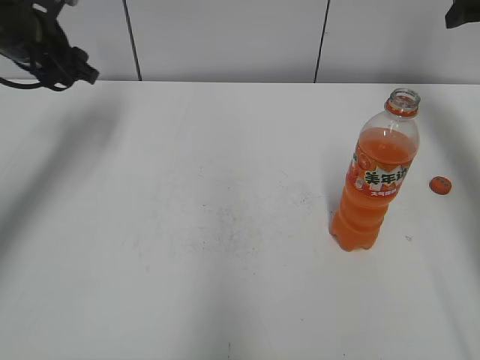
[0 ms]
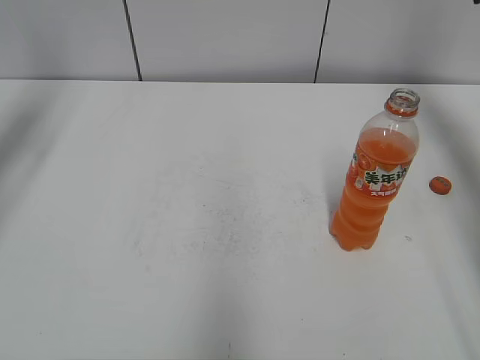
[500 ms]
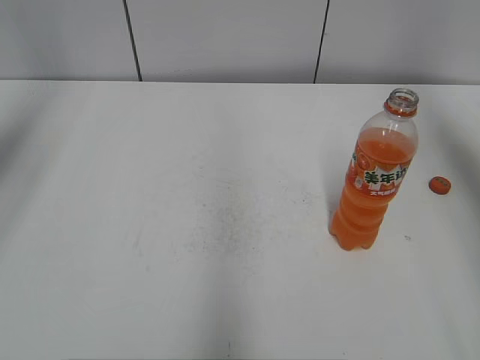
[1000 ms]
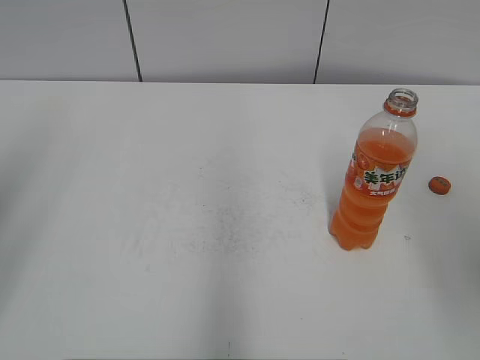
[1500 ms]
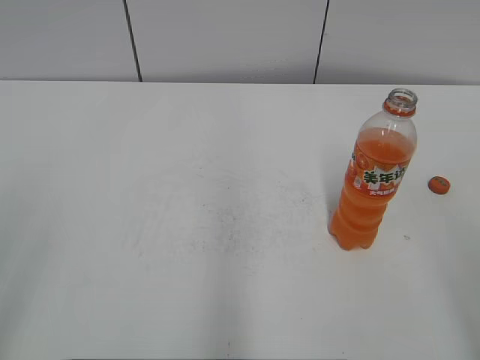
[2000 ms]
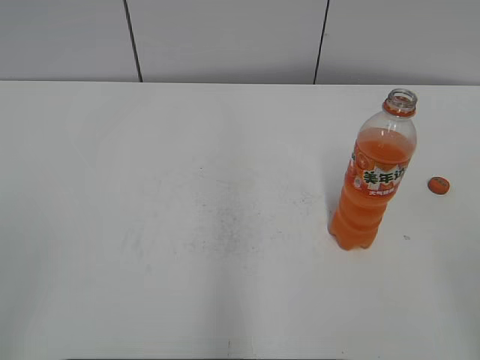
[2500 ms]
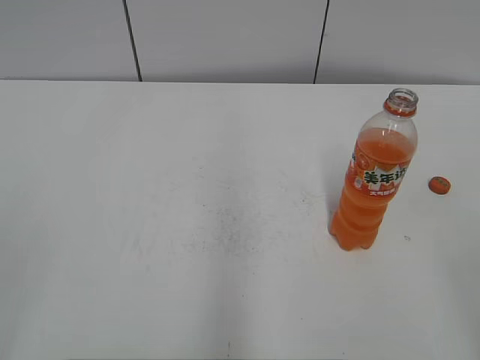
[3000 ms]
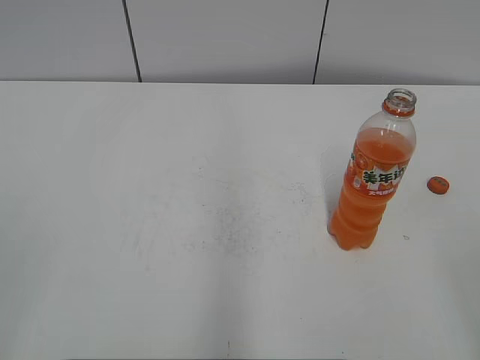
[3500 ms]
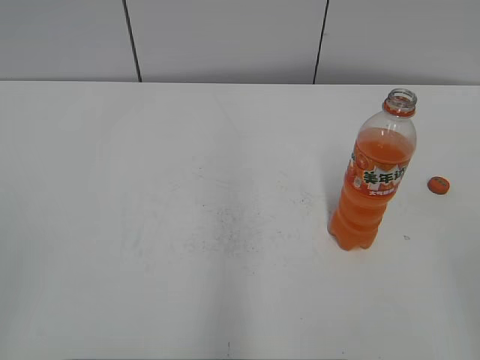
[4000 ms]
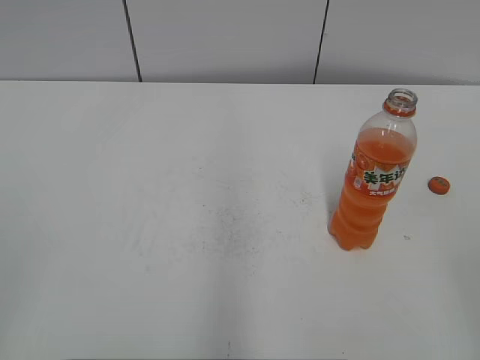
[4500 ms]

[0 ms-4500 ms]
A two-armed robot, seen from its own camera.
0 ms to 2000 ms: The grippers both shift backward by approximately 40 cm.

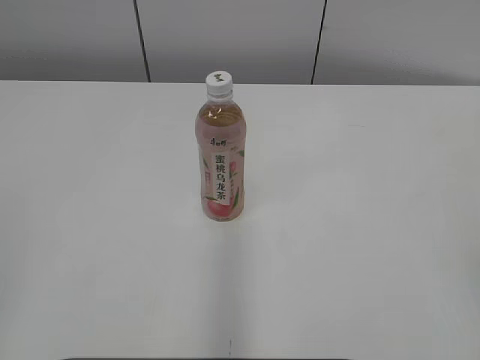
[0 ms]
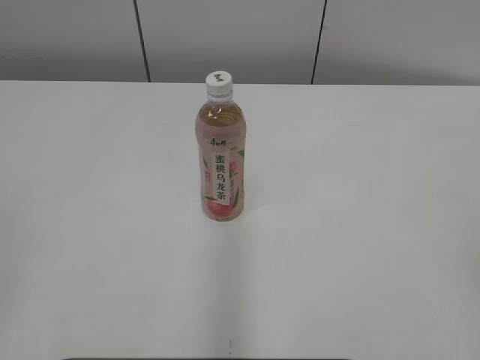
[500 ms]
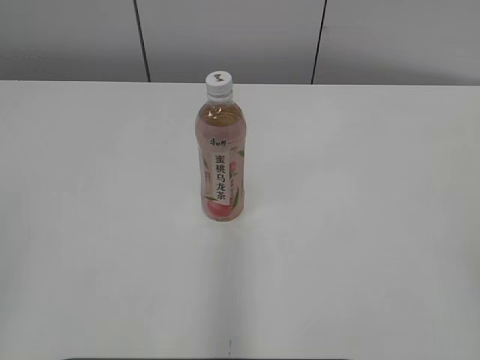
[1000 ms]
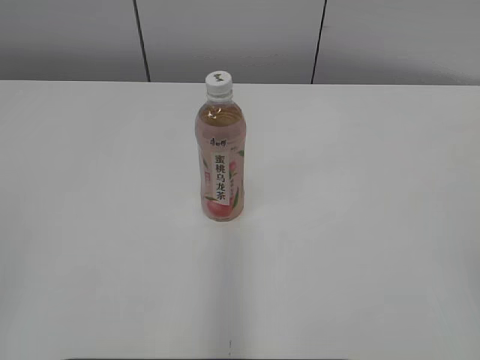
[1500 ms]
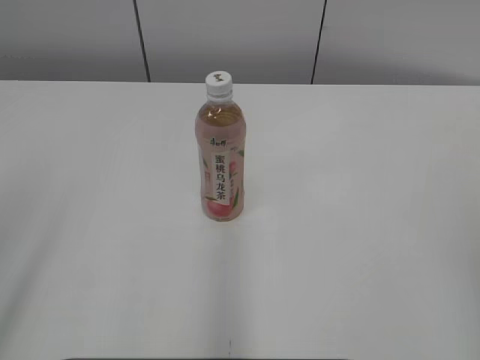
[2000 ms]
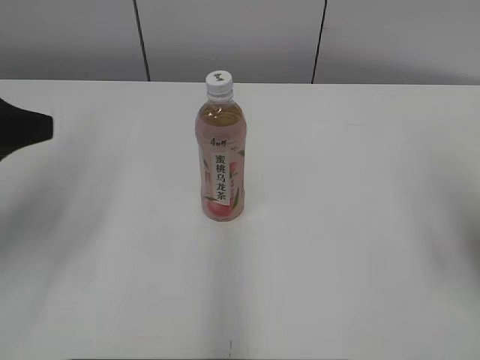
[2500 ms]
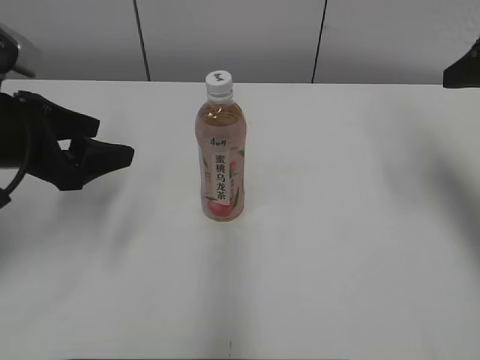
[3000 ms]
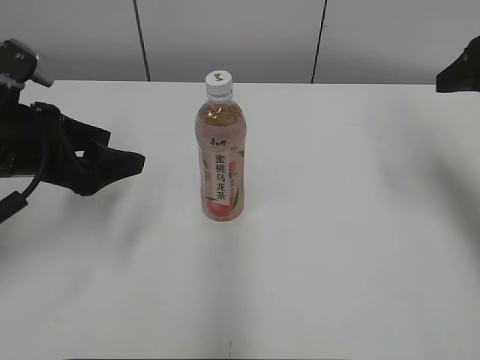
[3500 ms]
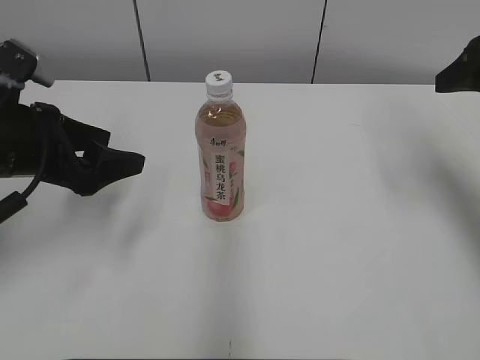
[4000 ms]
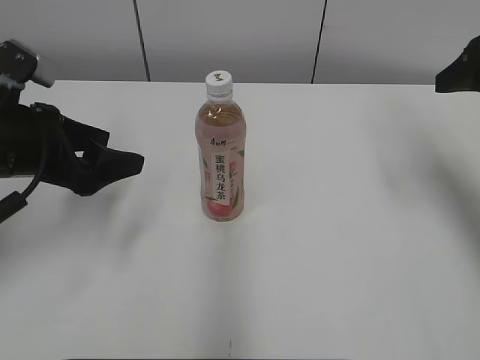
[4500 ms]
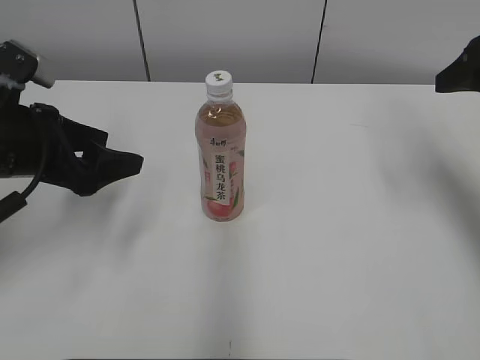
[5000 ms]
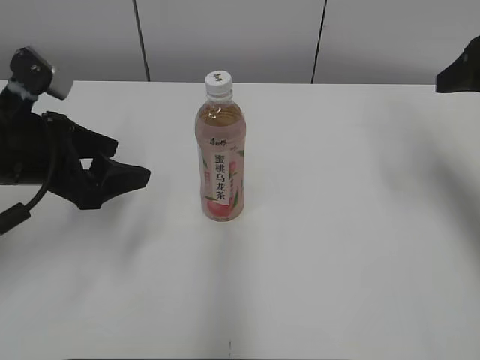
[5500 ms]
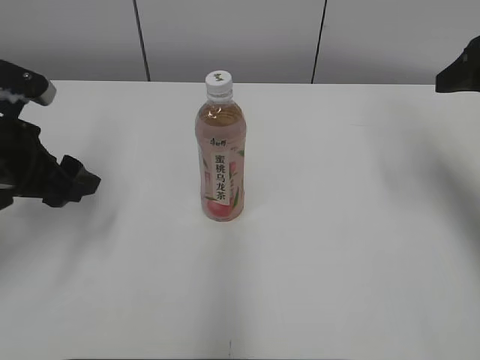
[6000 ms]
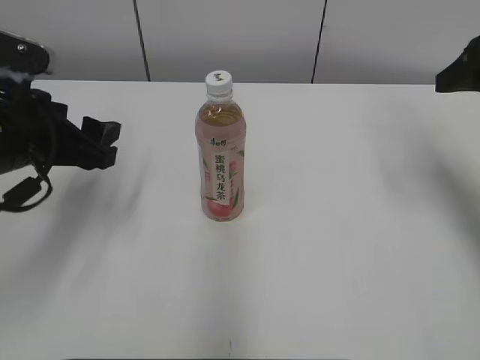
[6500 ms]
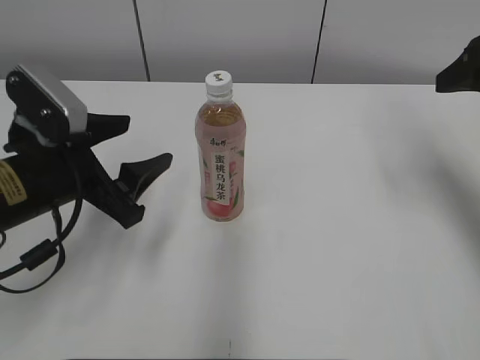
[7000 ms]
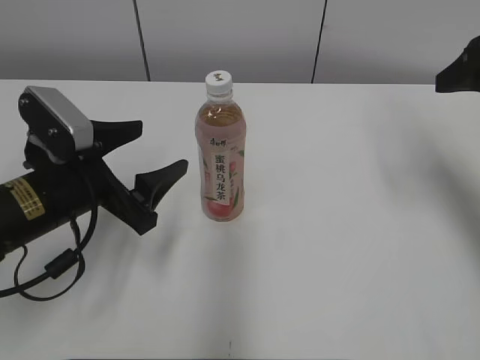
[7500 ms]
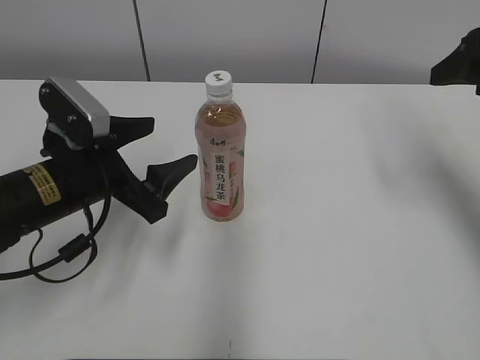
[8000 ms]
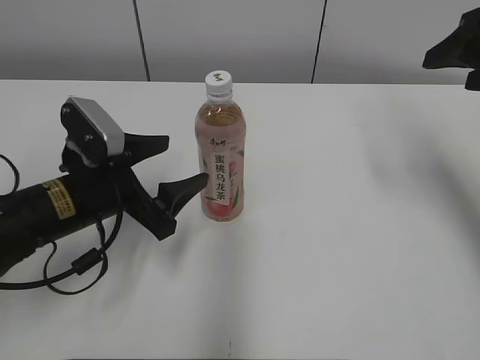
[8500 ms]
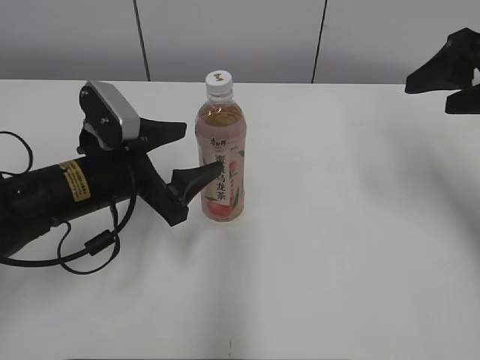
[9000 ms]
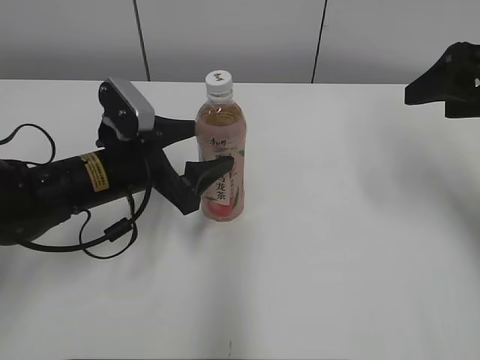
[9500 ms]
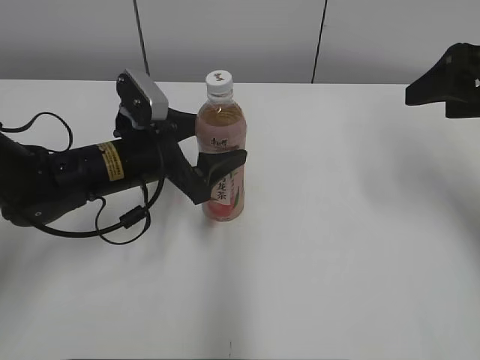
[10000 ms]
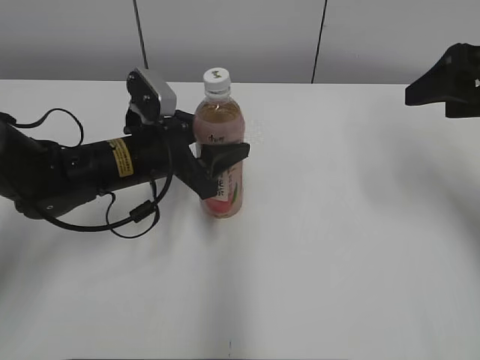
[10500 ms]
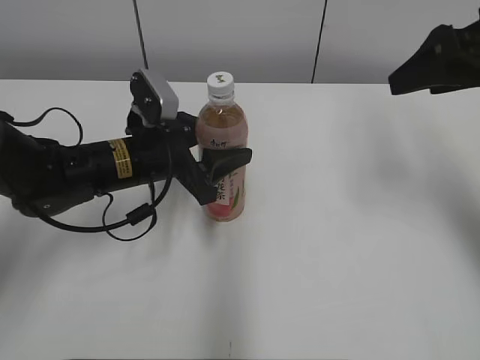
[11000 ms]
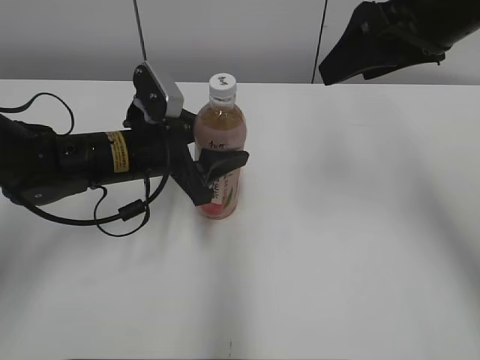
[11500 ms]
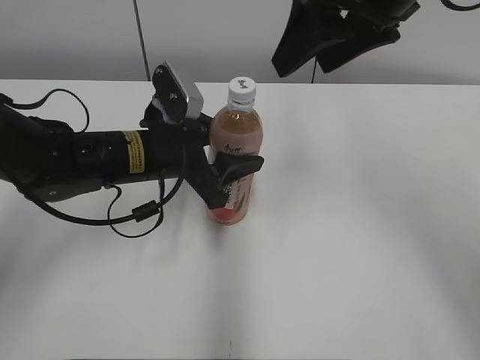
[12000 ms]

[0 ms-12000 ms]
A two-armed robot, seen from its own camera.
Step, 0 ms to 10000 ms: Grab the Peach Oolong Tea with the left hand.
2000 ms to 4000 ms: The right gripper moves forward, some 30 cm; the left gripper heads forward and downward, covering about 25 cm, and opens.
6000 ms to 8000 ms: The left gripper heads to the right, covering about 5 cm.
8000 ms to 10000 ms: The left gripper heads forward, covering about 5 cm.
10000 ms to 12000 ms: The left gripper closes its fingers. Meanwhile the right gripper heads to the left and upward, covering about 15 cm.

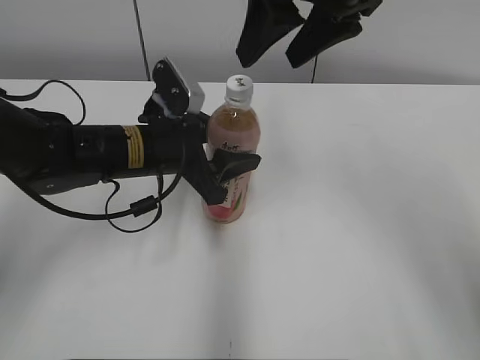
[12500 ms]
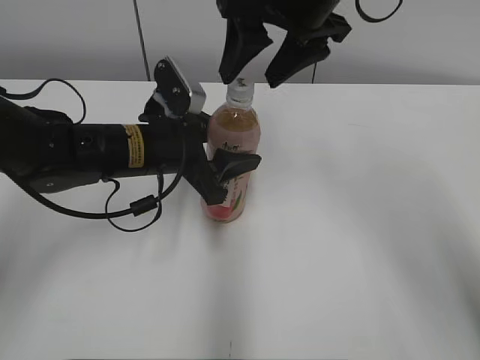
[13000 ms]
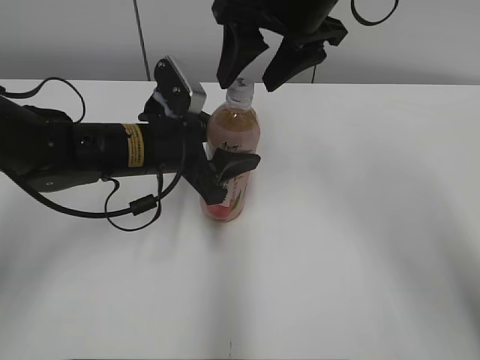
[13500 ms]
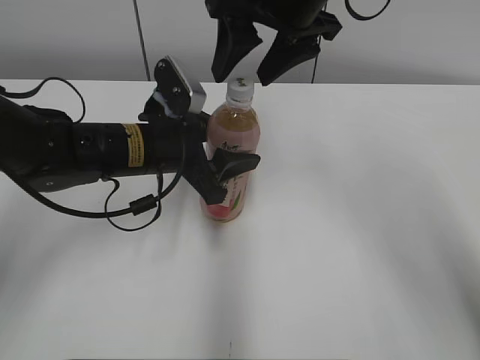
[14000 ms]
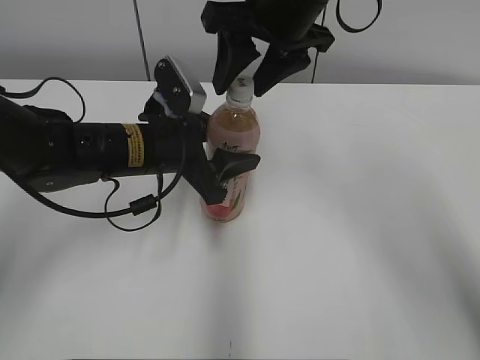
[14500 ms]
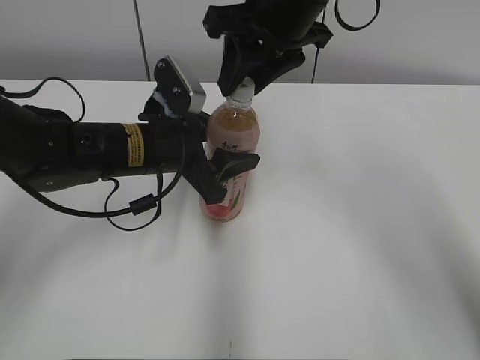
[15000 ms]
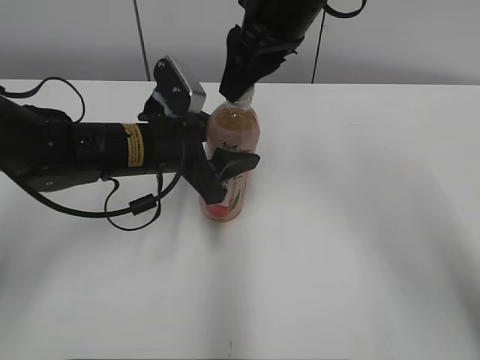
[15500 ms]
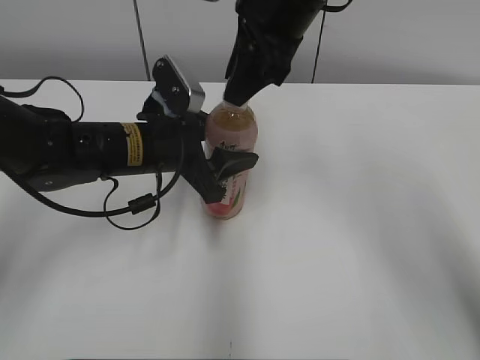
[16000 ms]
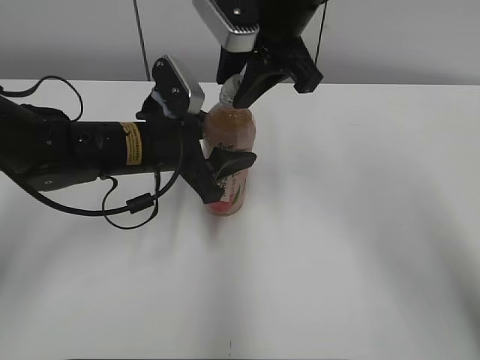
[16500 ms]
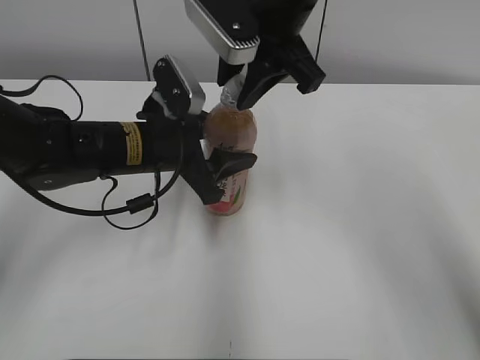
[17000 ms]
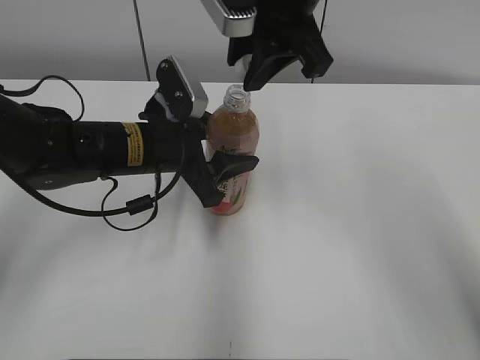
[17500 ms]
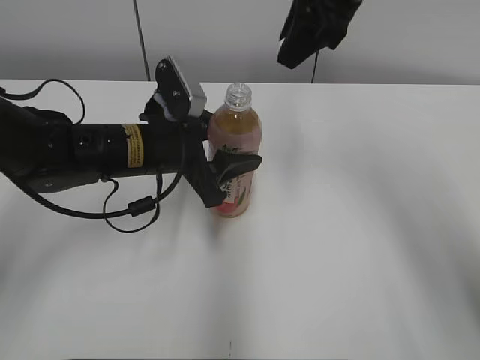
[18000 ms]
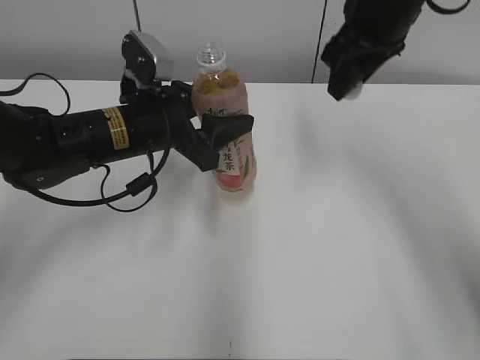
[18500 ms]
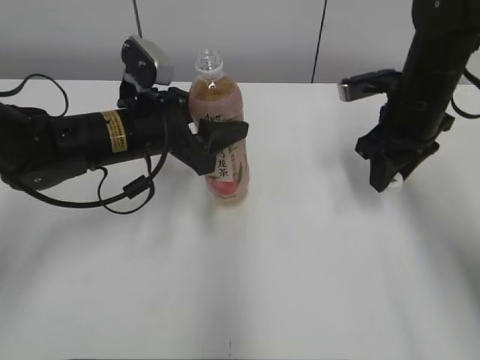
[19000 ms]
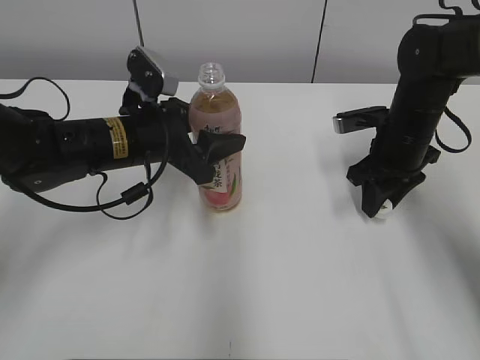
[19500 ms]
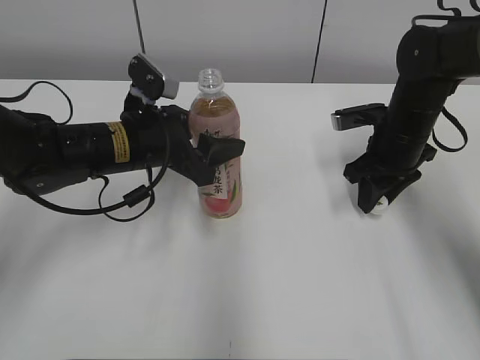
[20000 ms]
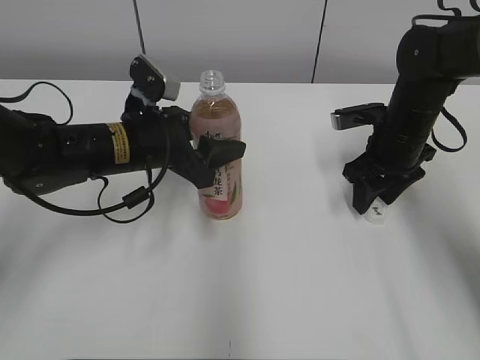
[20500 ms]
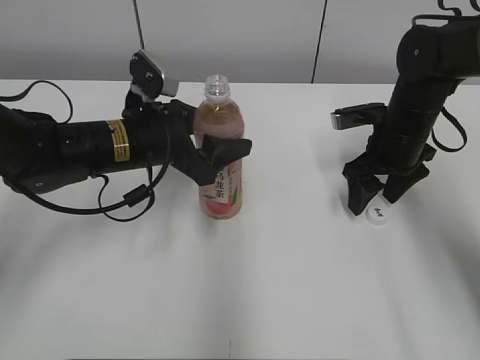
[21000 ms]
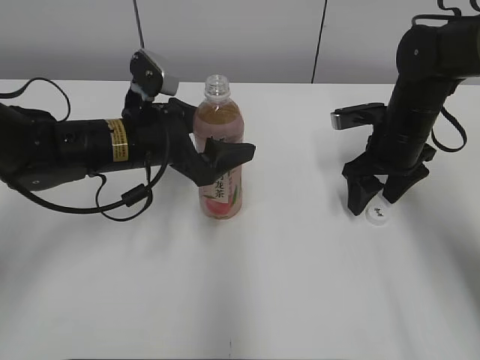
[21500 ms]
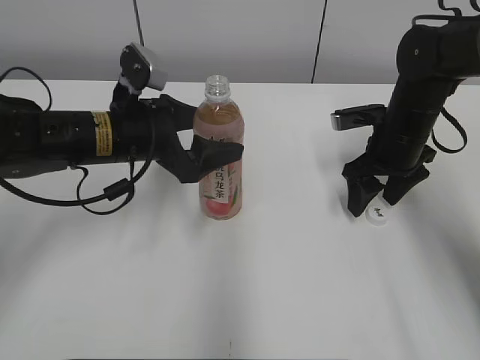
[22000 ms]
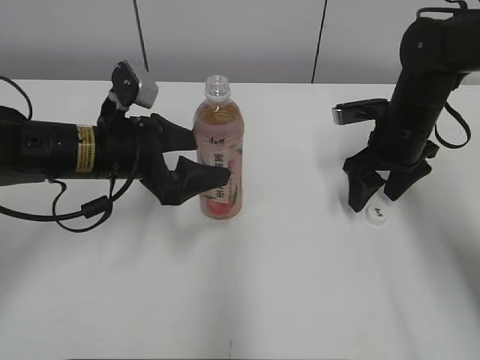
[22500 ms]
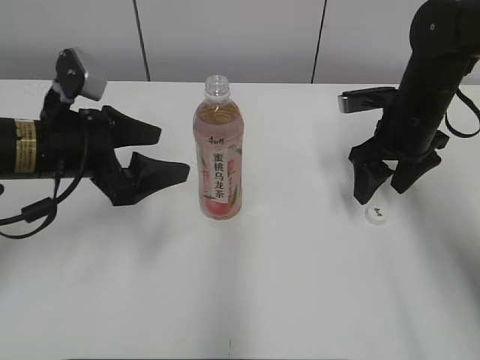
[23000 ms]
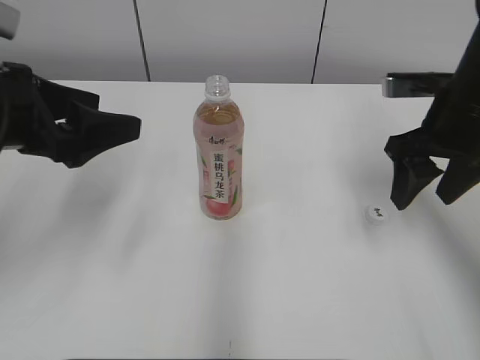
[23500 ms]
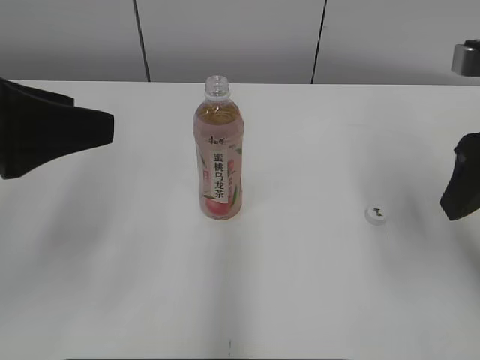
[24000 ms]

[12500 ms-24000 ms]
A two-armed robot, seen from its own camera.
Step, 12500 ms to 14500 ms: Move the Peach Oolong Tea from left to right.
Step, 17500 ms to 20500 ms: Place the bottle cap on the right.
Step, 21000 ms to 21500 ms: Place the Peach Oolong Tea with the left hand.
12500 ms to 14500 ms: The right gripper ends up about 5 cm from where it was, and closes.
14500 ms to 16500 ms: The right gripper closes.
16500 ms to 18500 ms: The right gripper shifts roughly 10 cm to the right.
18500 ms to 20000 ms: The right gripper goes about 20 cm downward.
20000 ms to 22000 ms: The left gripper opens its fingers, while the right gripper opens its fingers.
22000 ms to 24000 ms: The right gripper heads upward and backward, covering roughly 20 cm; the left gripper shifts some 20 cm backward, upward and to the left.
